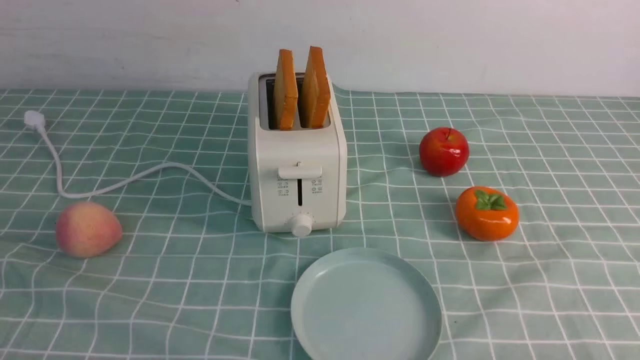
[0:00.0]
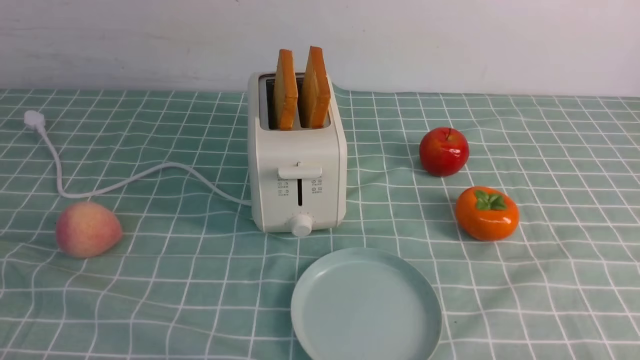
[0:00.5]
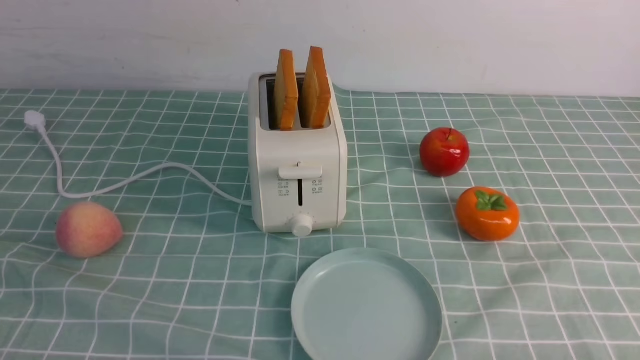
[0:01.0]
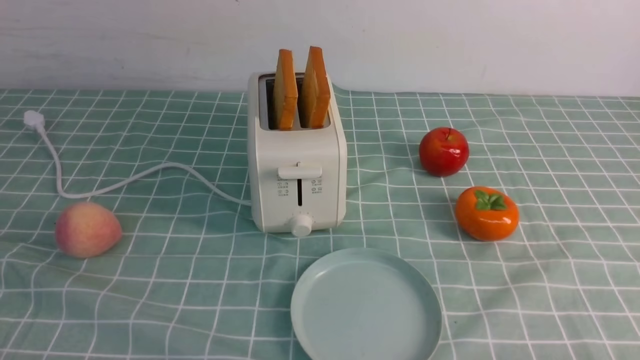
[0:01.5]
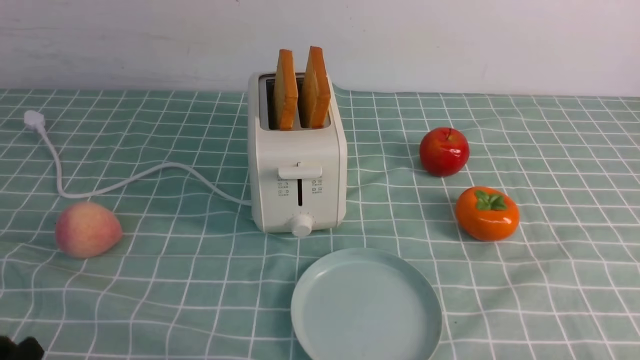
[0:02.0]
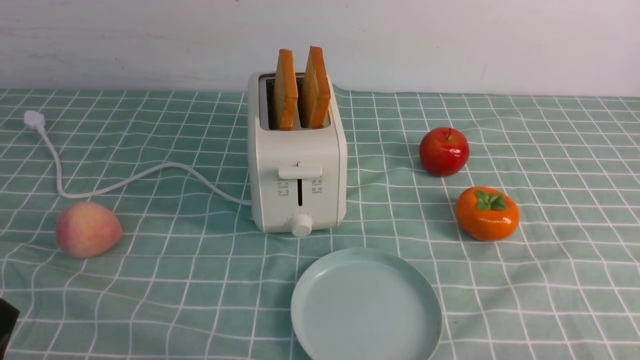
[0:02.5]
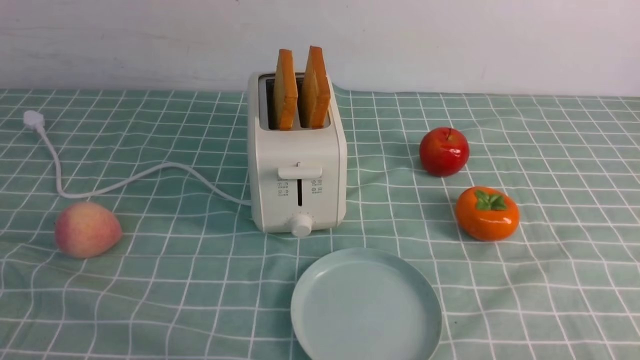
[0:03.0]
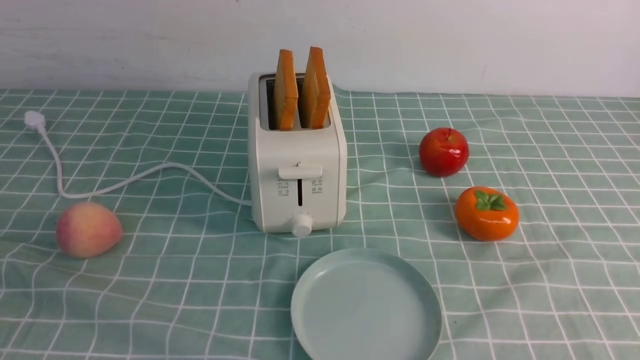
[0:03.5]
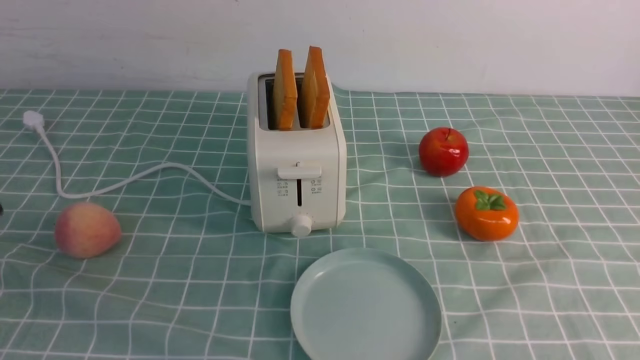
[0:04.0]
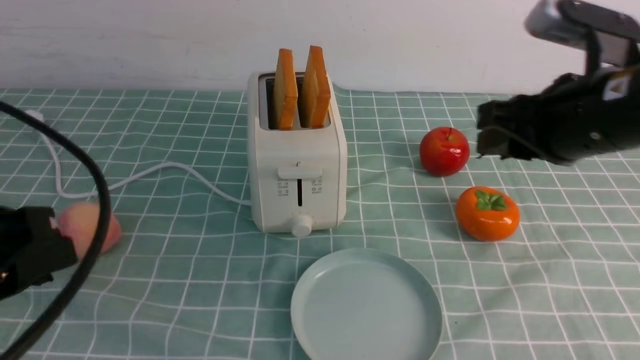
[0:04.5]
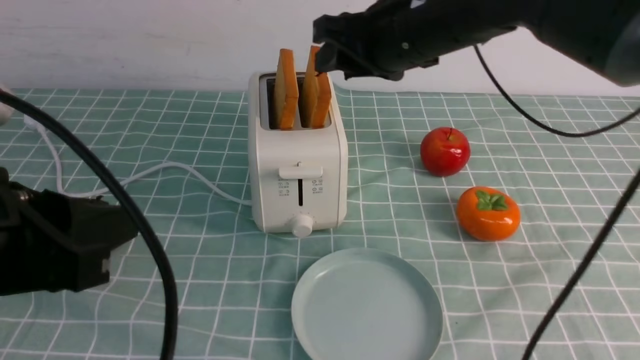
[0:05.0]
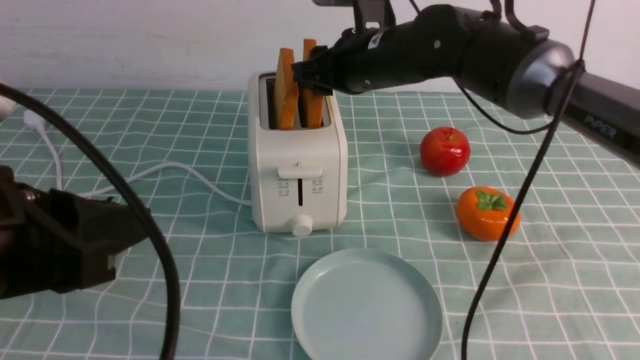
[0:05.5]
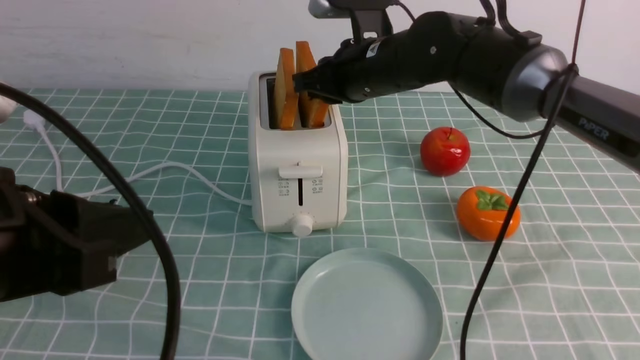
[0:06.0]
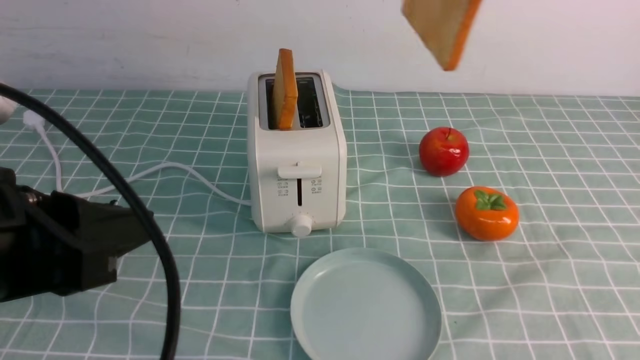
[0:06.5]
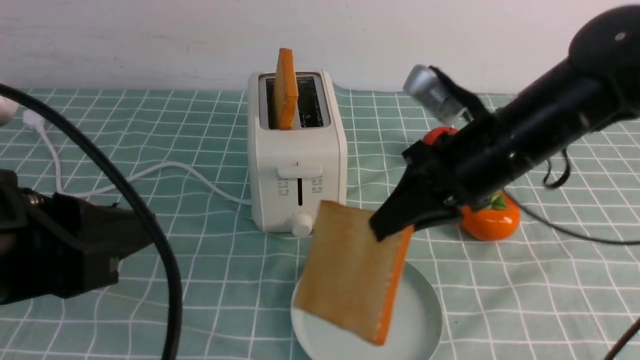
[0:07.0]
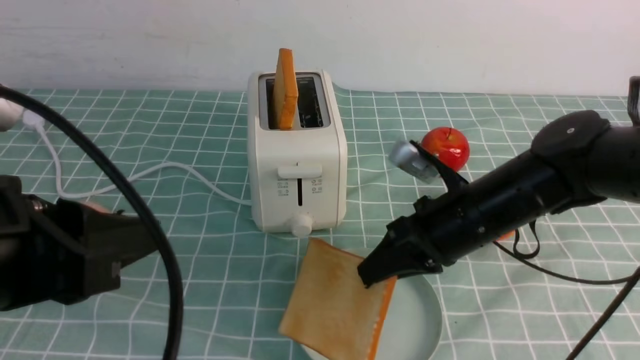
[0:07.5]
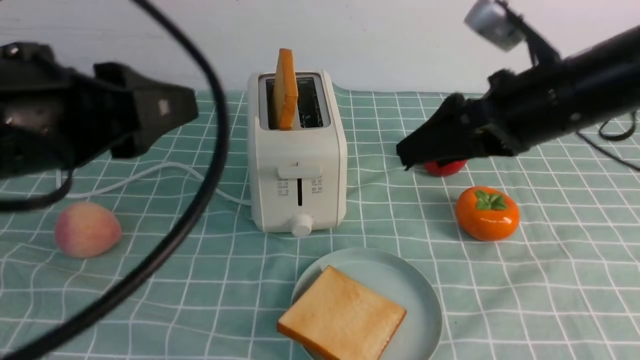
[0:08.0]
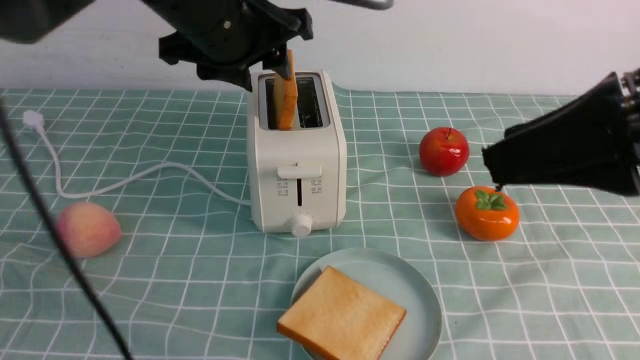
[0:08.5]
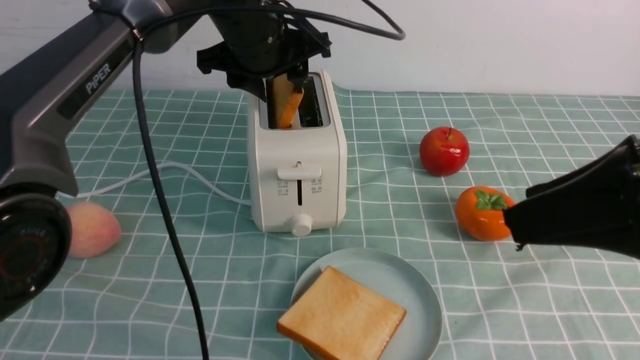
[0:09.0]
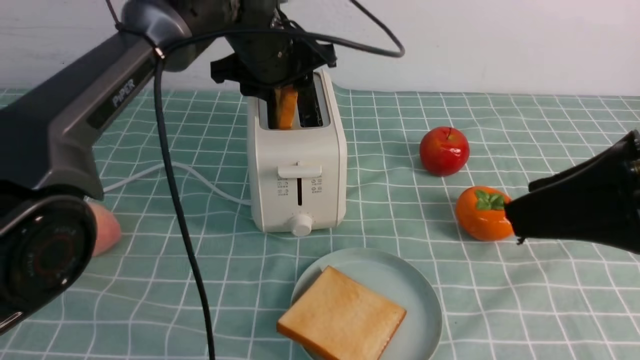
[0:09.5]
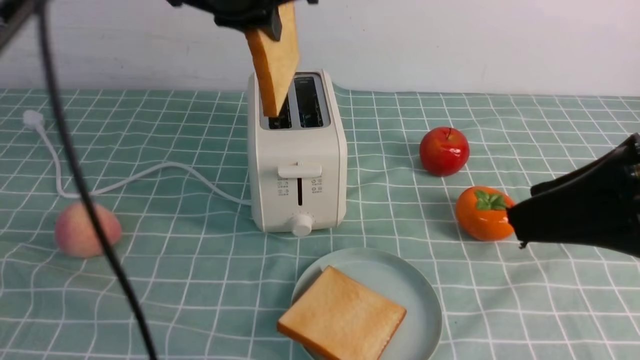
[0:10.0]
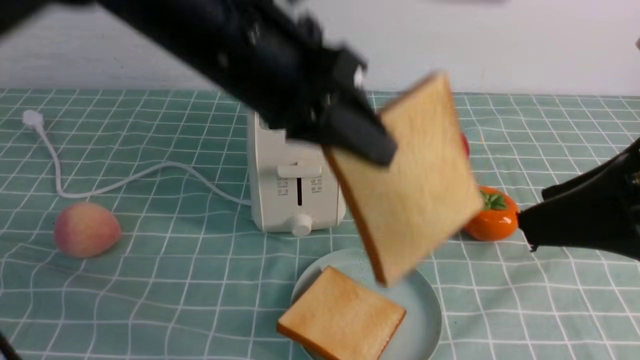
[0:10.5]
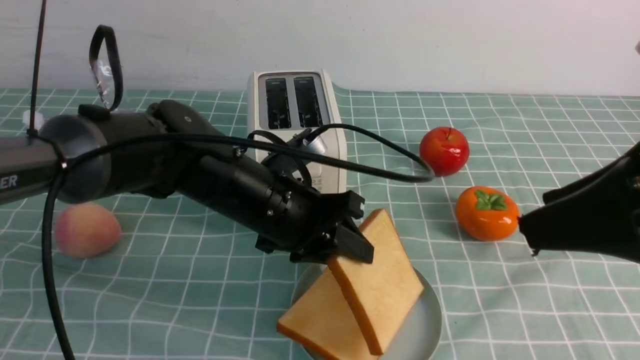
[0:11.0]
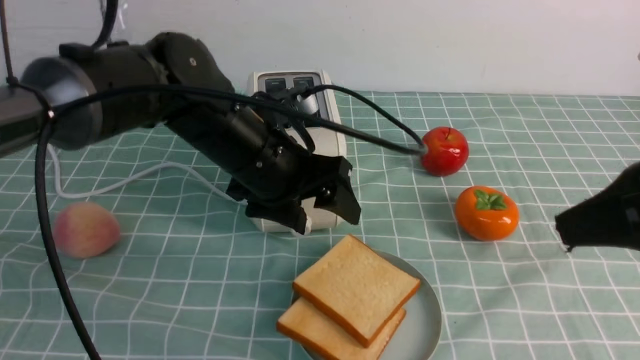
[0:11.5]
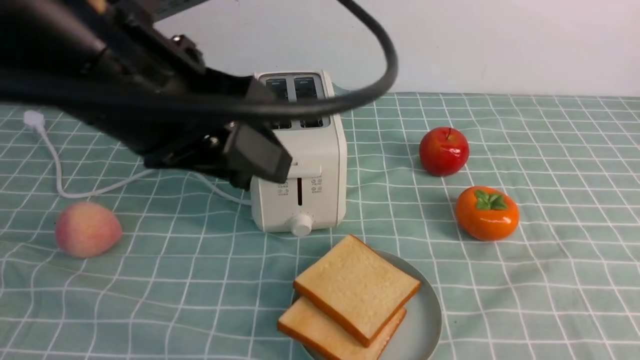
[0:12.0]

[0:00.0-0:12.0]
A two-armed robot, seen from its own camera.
Task of the whole recording: take toasted bread from bread machine on blue coffee table place on plate.
Step, 0:00.0 to 0:06.0: use the right arm to take out a slice of bread.
Step, 0:07.0 to 0:07.5: use the right arm to put a slice of bread into the plate.
Step, 0:08.0 to 0:10.0: use the left arm to take out a slice of bread.
Step, 0:10.5 to 0:11.5: use the left arm to put a slice of bread into the empty plate.
0:02.0 to 0:04.0: The left gripper moves upward, some 20 cm.
0:04.0 to 0:06.0: The left gripper moves to the right, roughly 5 cm; the right gripper heads forward and to the left, covering about 35 cm.
0:06.0 to 0:08.0: The left gripper ends up some 5 cm from where it was. Meanwhile the right gripper goes up and down, roughly 20 cm each way, reversing 2 times, and opens up.
0:08.0 to 0:10.0: The right gripper shifts roughly 15 cm backward and upward, while the left gripper is displaced forward by about 25 cm.
0:10.0 to 0:12.0: The left gripper heads backward, covering about 15 cm, reaches roughly 15 cm downward, then returns, and opens. The right gripper moves backward, downward and to the right, about 10 cm, and closes up.

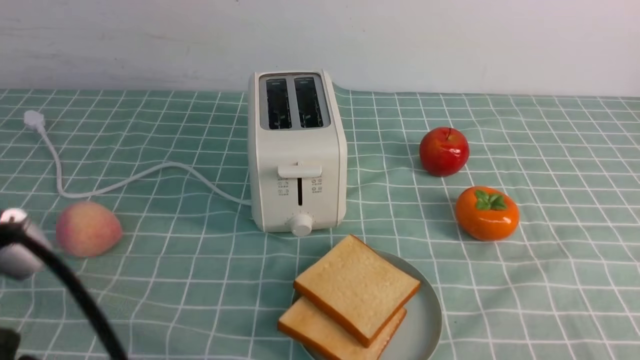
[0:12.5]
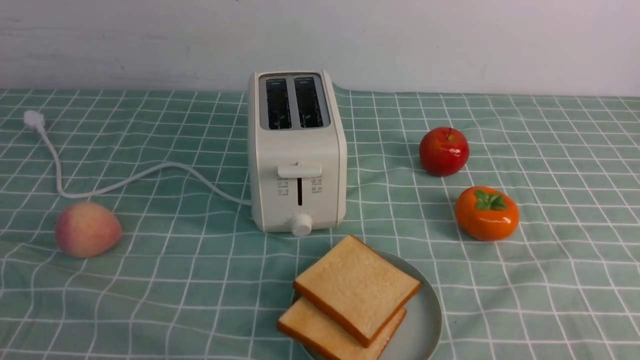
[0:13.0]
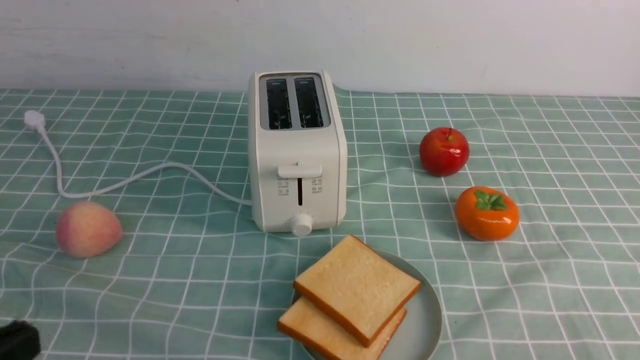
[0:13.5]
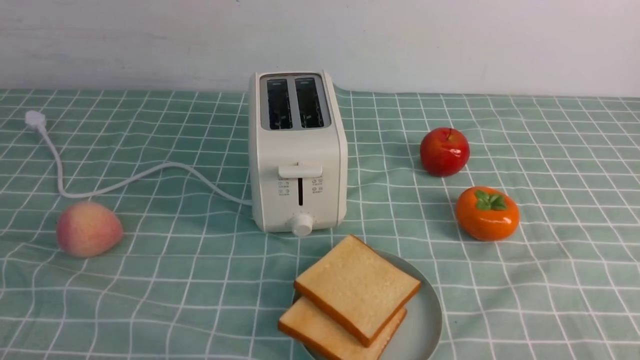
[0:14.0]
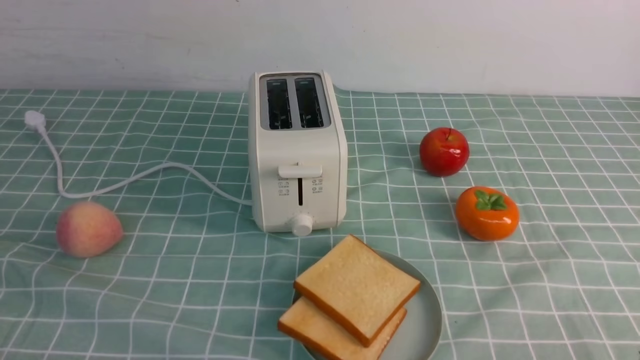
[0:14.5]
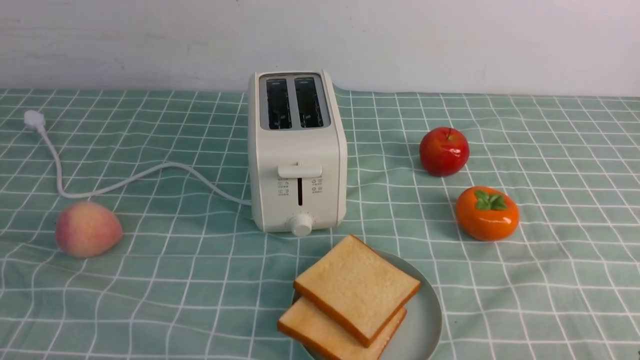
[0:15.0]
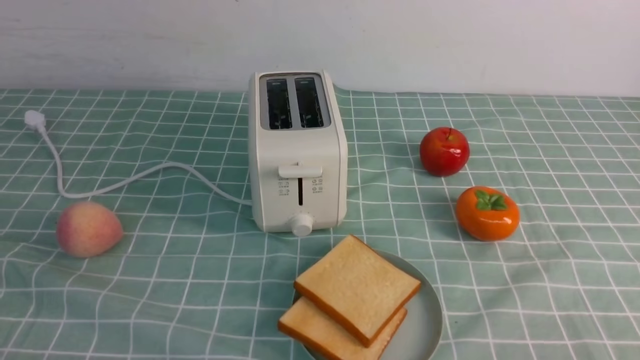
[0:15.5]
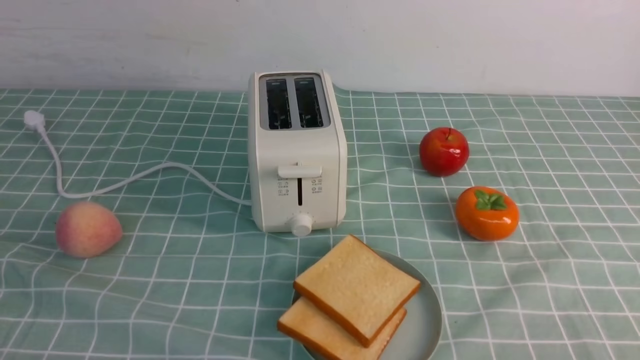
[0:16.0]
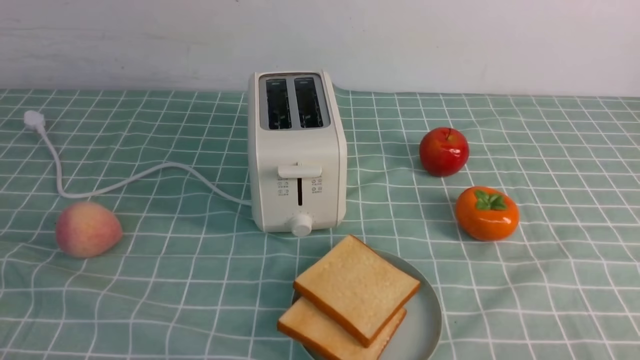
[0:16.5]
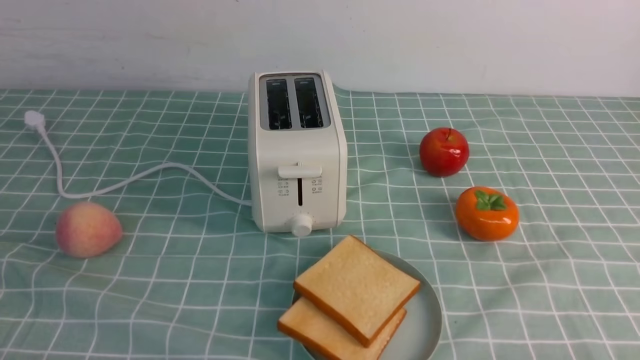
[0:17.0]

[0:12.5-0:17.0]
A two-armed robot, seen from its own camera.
Task of the whole recording: take toasted bread from bread machine on blue coffee table place on plate.
0:12.5 to 0:14.5: The left gripper heads downward and to the left, covering some 20 cm.
